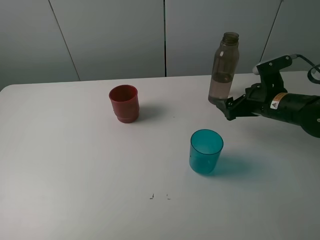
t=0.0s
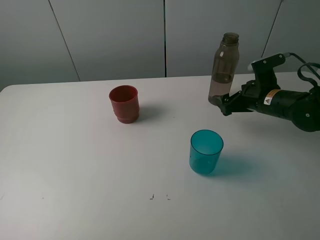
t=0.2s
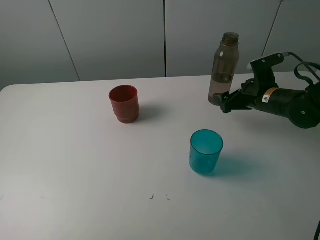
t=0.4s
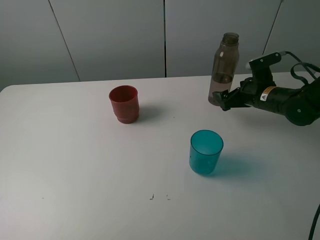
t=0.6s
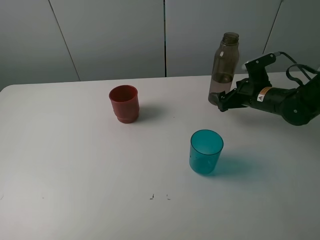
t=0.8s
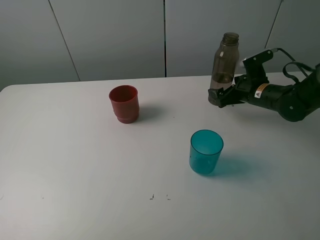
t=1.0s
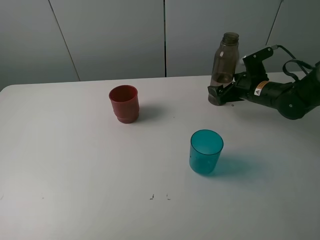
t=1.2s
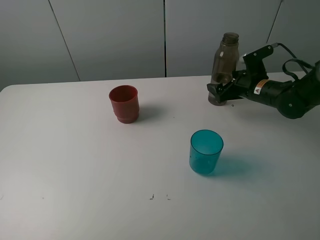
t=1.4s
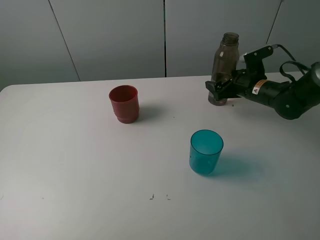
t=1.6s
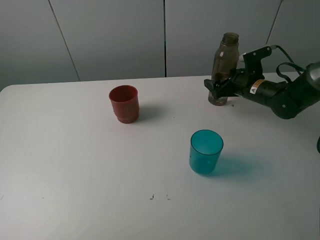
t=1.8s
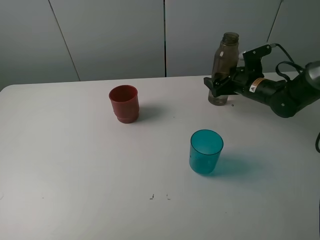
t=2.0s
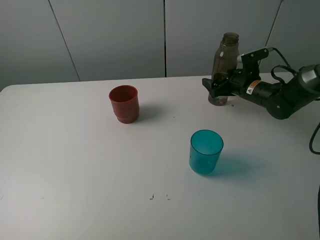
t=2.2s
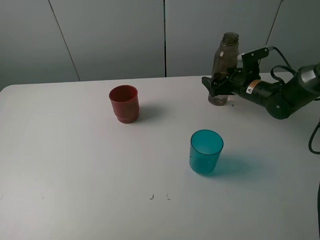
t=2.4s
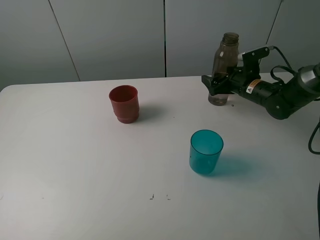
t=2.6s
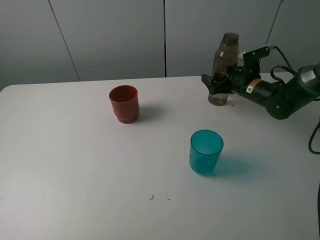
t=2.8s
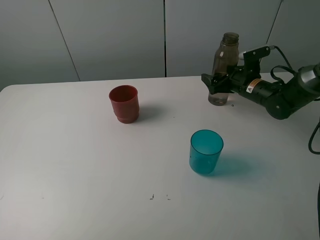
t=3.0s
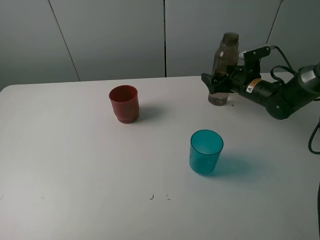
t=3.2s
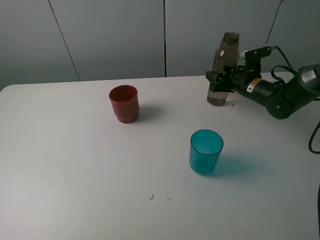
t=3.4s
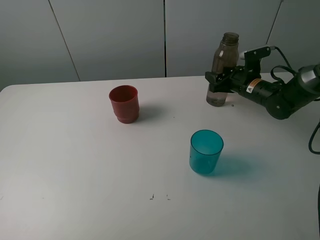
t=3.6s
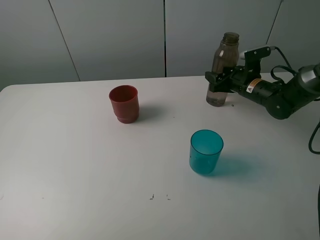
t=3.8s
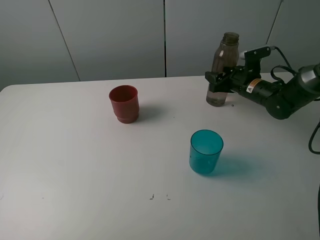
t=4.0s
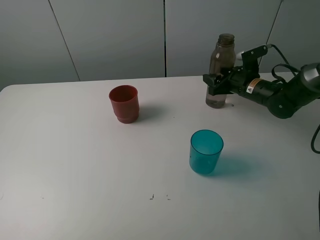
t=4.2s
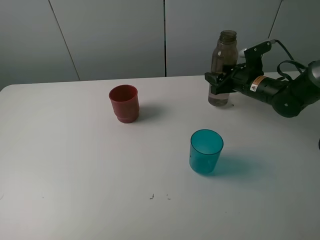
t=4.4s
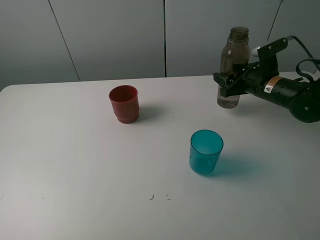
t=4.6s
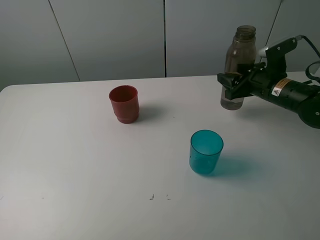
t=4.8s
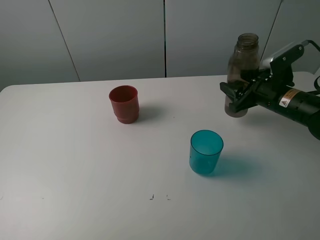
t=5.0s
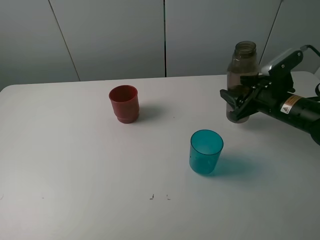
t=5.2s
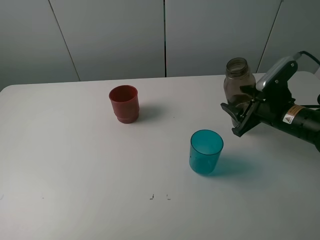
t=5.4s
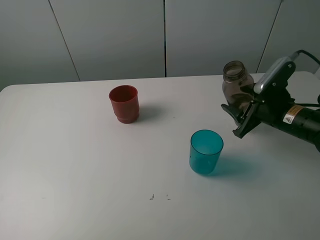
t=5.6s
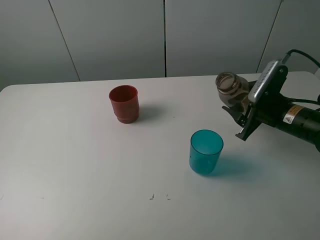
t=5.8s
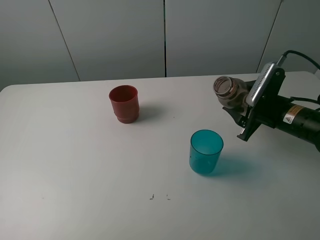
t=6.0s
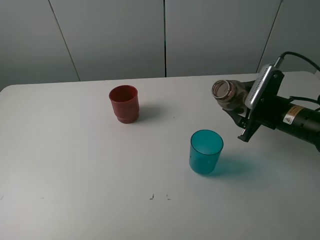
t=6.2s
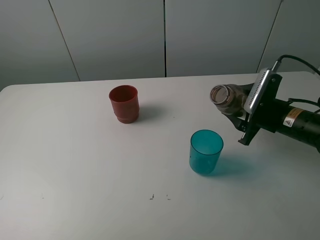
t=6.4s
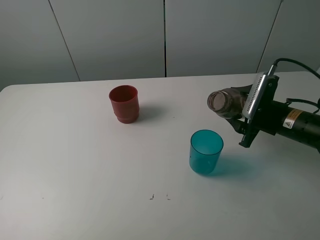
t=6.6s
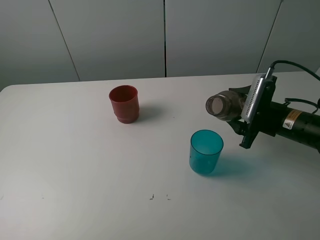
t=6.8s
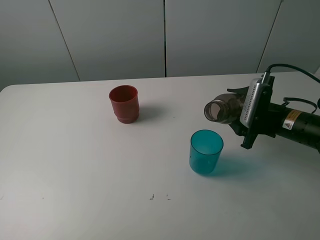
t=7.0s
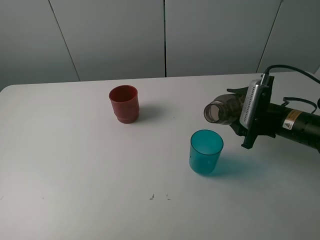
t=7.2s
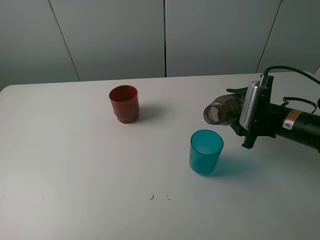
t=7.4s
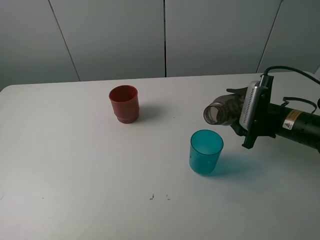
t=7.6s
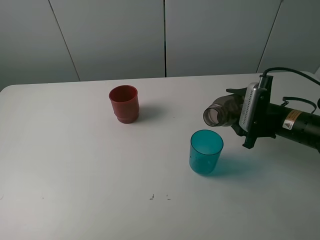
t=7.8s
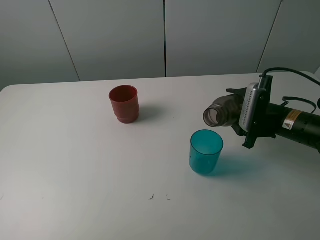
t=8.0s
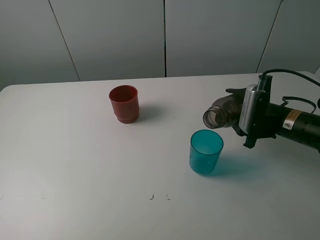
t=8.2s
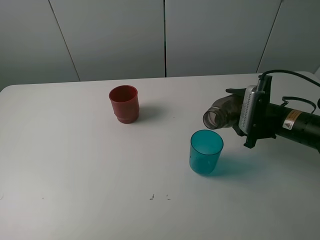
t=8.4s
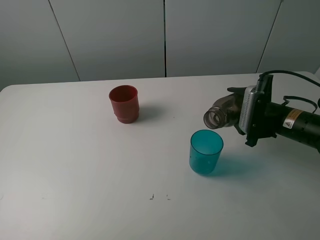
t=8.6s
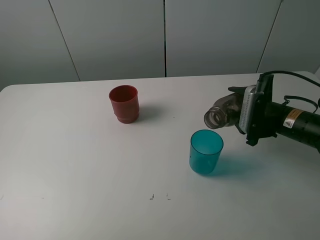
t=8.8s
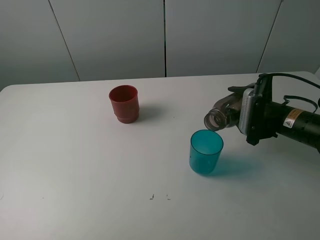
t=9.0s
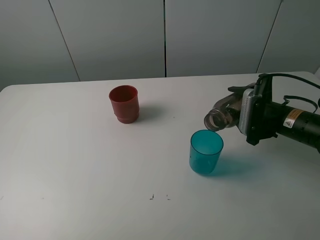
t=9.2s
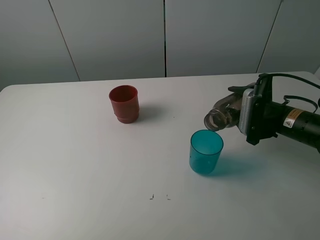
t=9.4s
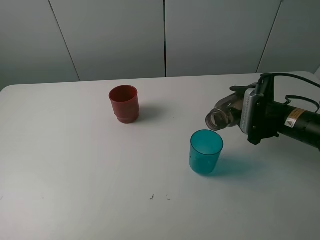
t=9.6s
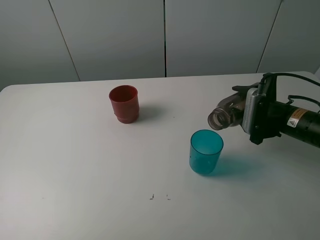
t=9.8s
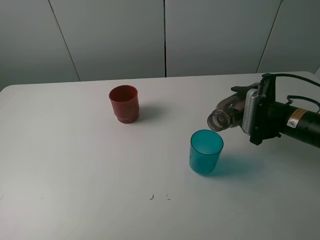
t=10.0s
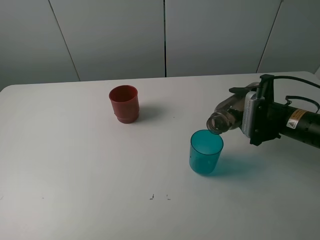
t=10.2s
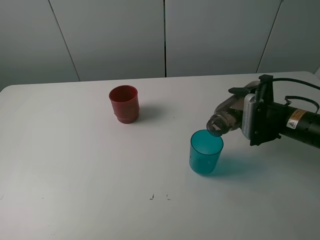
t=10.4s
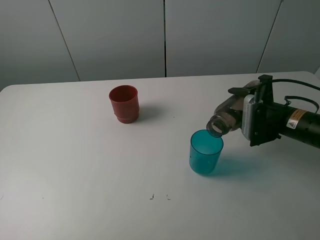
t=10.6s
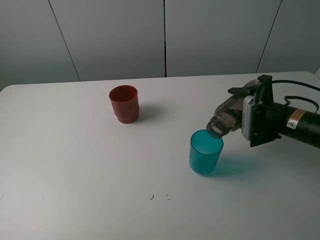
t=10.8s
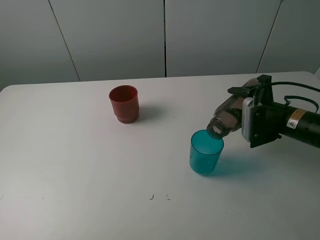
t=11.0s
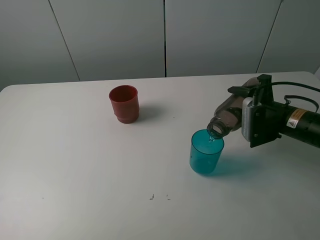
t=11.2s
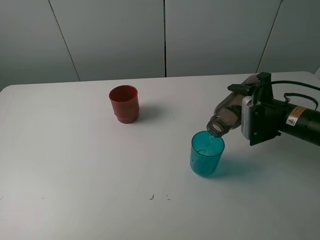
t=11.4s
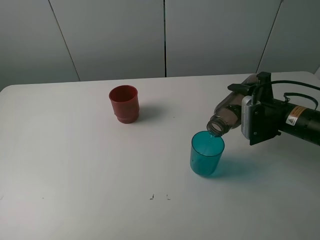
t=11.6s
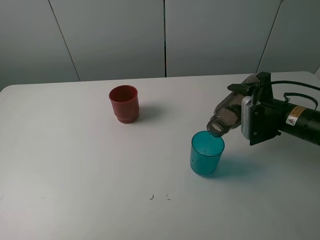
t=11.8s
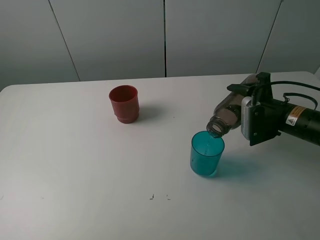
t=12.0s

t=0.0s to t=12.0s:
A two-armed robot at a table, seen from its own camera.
Task of the whole recording: pick up the bottle and pour water into the cup, then pick up the cup containing water and pour it into another cup.
Step, t=0.0s to t=3.4s: Grasp the brown bottle with the right gripper.
t=0.0s to t=1.6s: The right gripper travels forward by about 10 cm.
t=1.6s to t=3.0s: The grippers make only small movements.
t=3.0s to t=4.4s: The right gripper closes its fingers.
t=4.4s to t=6.0s: The right gripper travels backward by about 10 cm.
t=7.6s to t=10.4s: The grippers move only a little.
t=10.4s to t=12.0s: The grippers make only small movements.

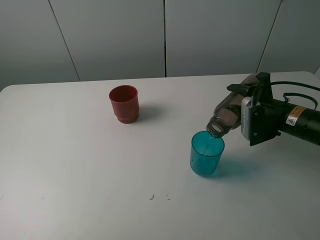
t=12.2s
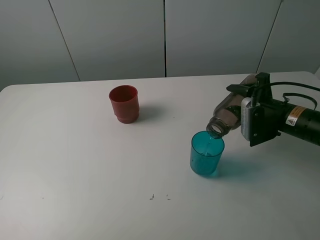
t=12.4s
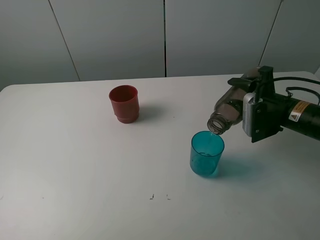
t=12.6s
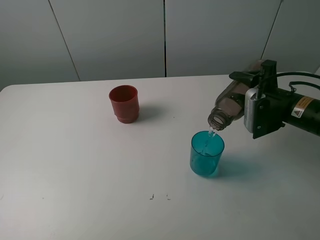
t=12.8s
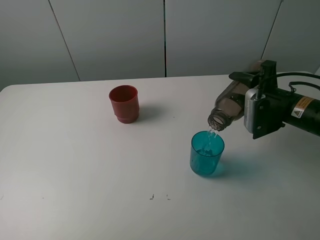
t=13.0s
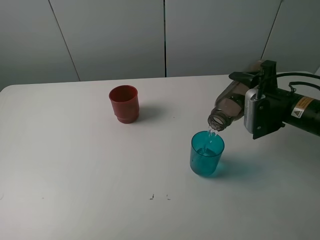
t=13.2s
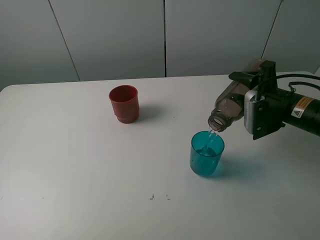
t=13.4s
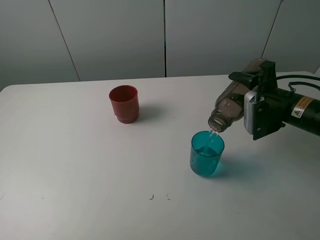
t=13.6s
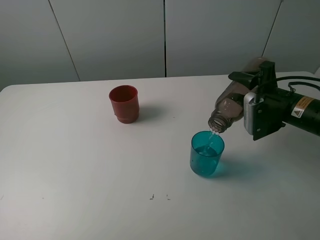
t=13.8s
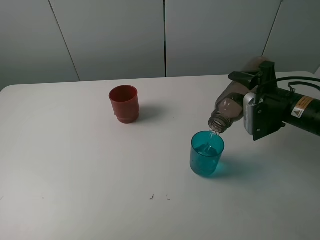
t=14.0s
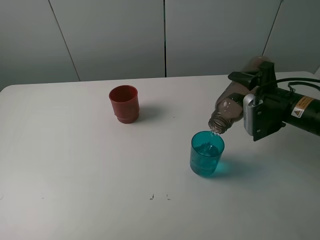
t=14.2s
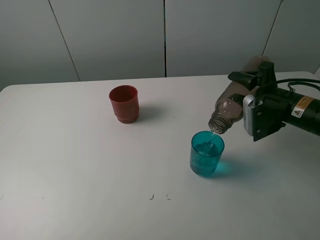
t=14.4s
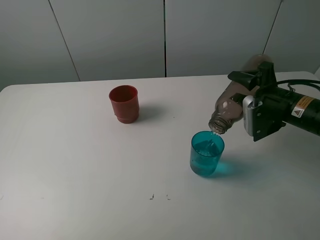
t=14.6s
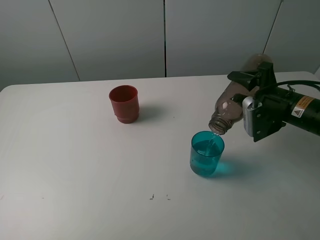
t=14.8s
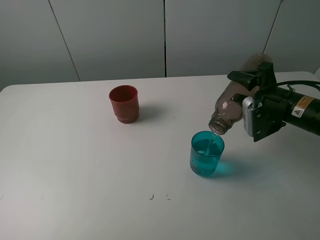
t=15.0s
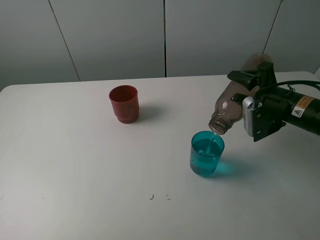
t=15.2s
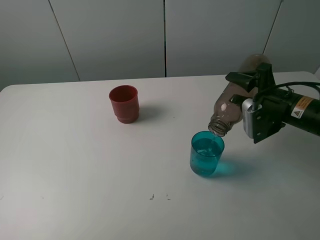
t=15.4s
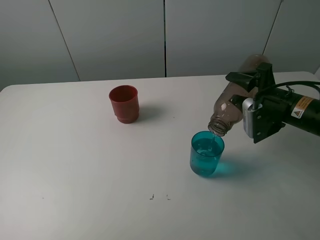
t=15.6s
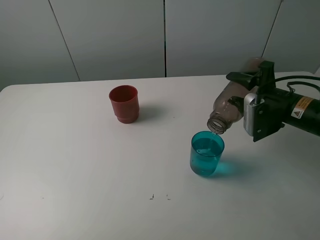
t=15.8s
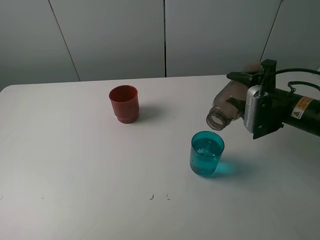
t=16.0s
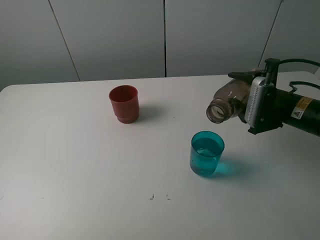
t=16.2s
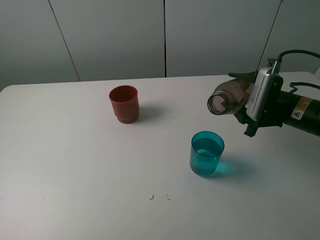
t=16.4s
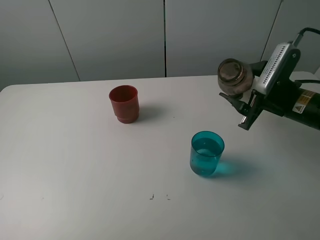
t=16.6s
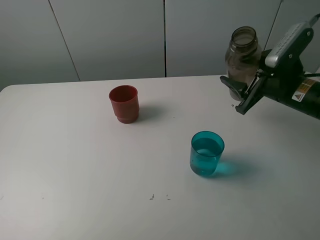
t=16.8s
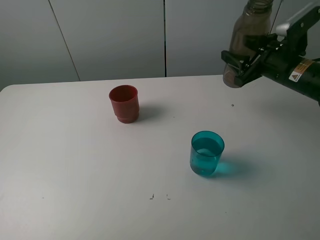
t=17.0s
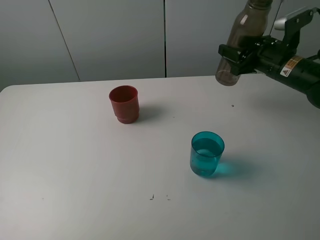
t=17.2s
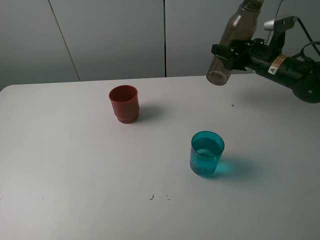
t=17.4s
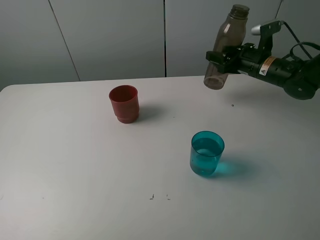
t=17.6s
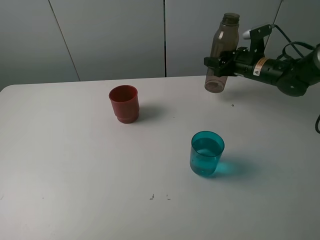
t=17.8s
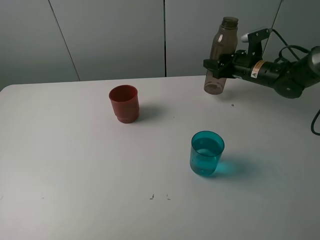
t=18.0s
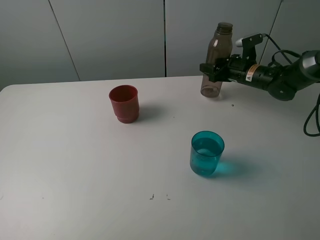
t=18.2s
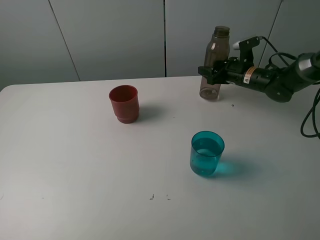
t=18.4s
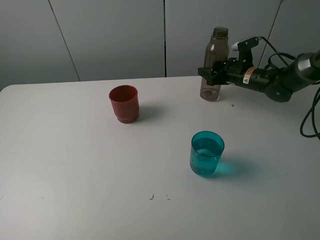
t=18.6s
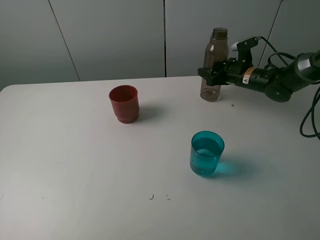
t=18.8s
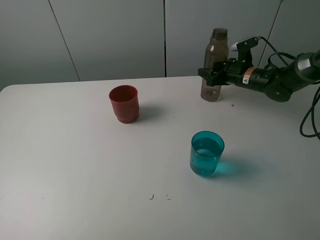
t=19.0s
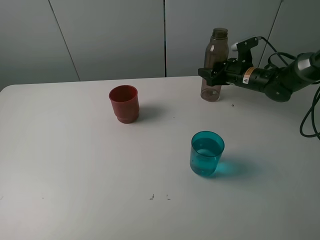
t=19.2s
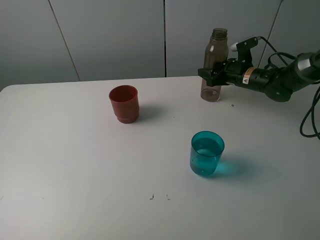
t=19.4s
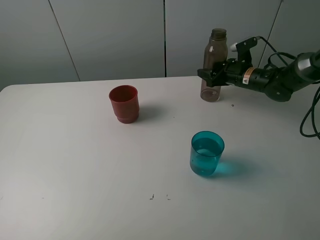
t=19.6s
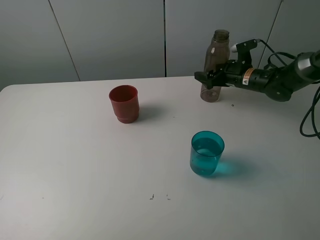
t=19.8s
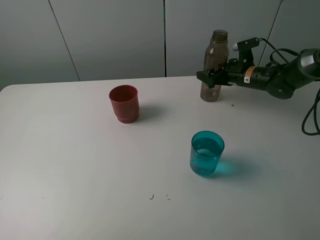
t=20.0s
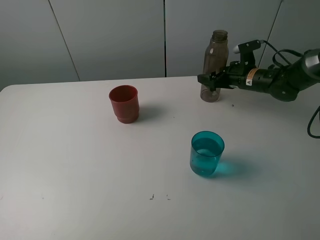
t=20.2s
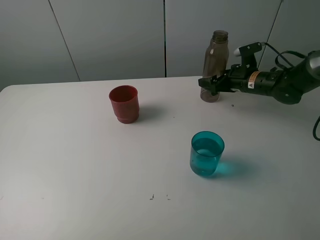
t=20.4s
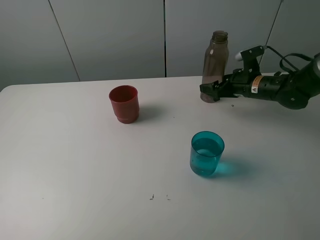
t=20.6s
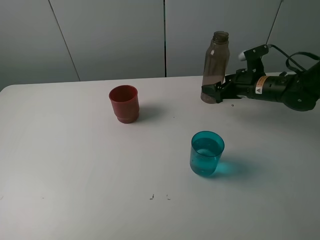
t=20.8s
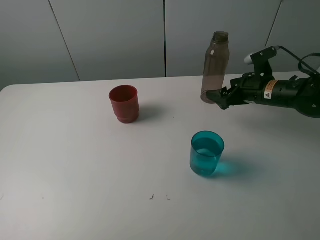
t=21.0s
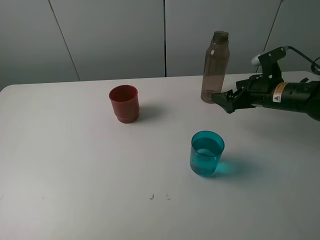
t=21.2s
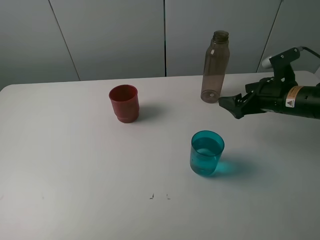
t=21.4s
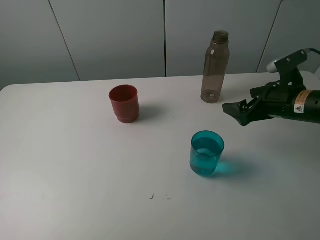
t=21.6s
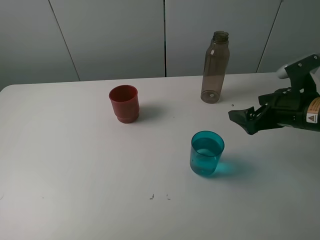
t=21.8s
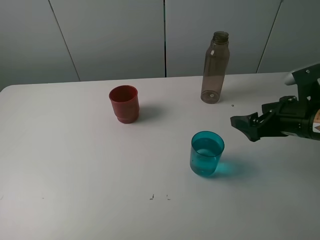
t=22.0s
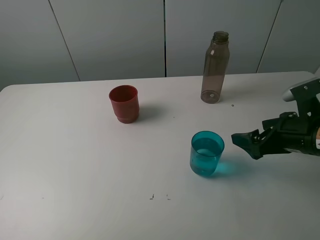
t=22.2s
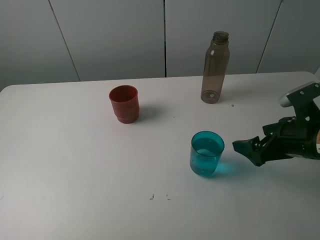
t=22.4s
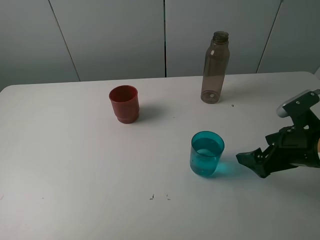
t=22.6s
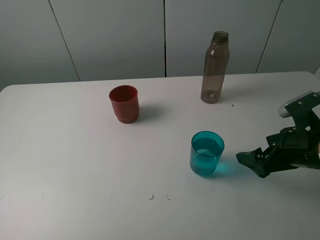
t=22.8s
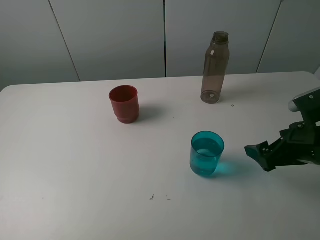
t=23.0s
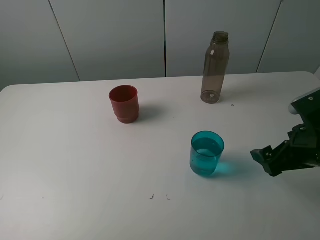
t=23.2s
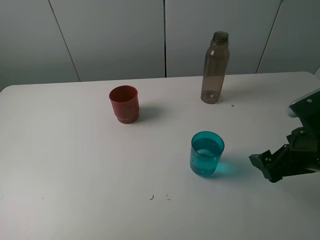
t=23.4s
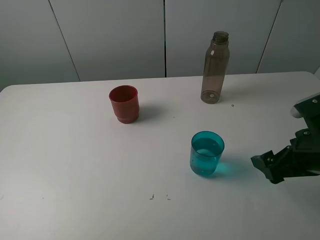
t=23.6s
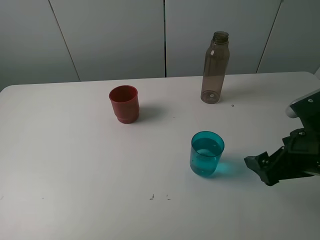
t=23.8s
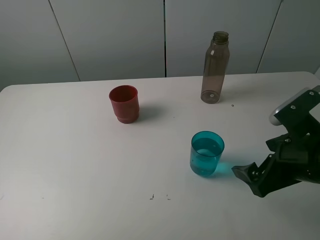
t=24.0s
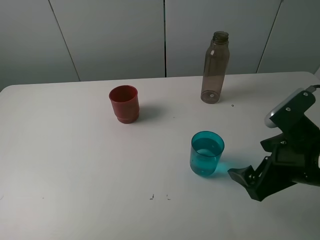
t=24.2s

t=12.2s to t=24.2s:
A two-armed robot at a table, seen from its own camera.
Task of the whole recording: pick up the bottle and pour water into the cup, then pick up the cup containing water and pour it into another cup.
Step, t=12.2s to t=16.0s: Pour water from brown bottle to blue cup with the right gripper.
Step, t=16.2s to t=19.6s: Place the brown bottle with the right gripper.
t=12.2s to t=13.8s: The grippers stay close to where they were, moving slightly.
t=13.8s to t=15.2s: Neither gripper changes place.
t=16.6s to t=18.2s: The right gripper moves forward, approximately 15 cm.
t=18.2s to t=19.8s: The right gripper opens.
t=19.8s to t=21.2s: The right gripper is displaced backward by approximately 15 cm.
t=21.2s to t=22.6s: The right gripper heads backward, covering approximately 15 cm.
t=22.6s to t=24.2s: The right gripper moves backward, about 5 cm.
